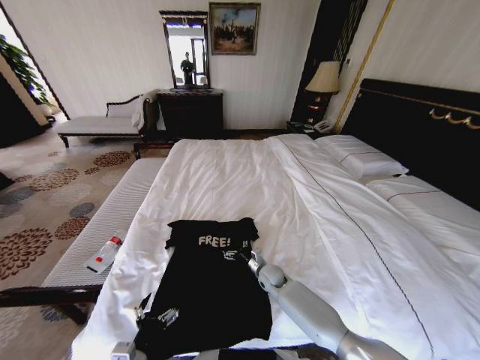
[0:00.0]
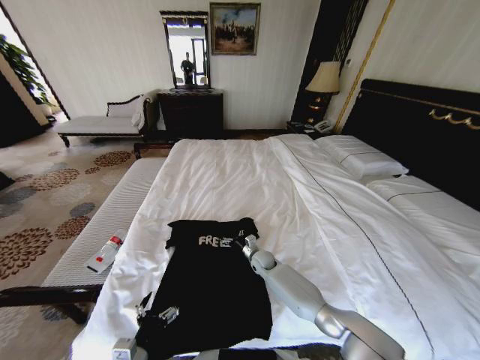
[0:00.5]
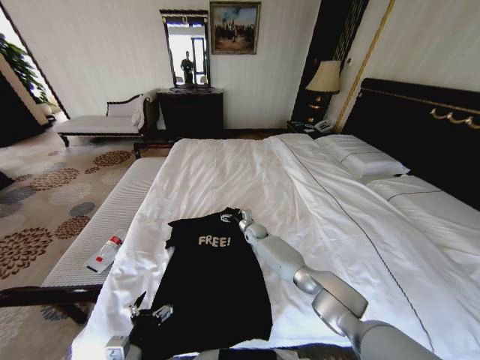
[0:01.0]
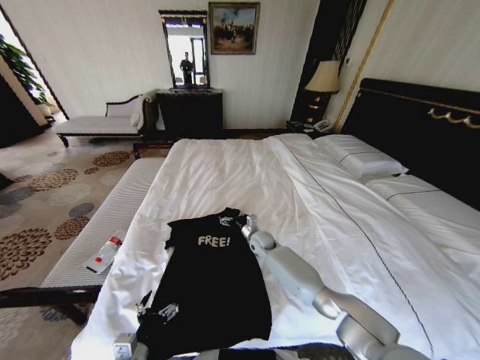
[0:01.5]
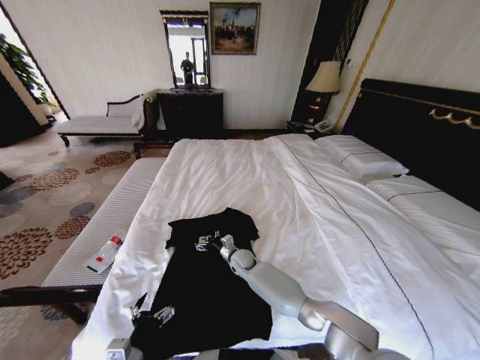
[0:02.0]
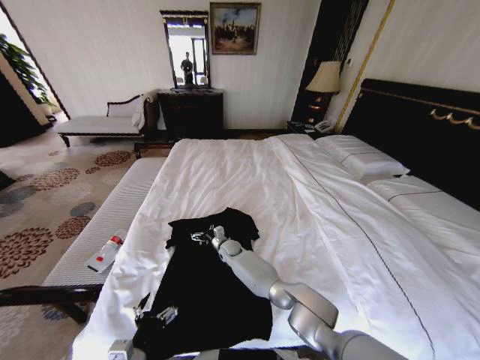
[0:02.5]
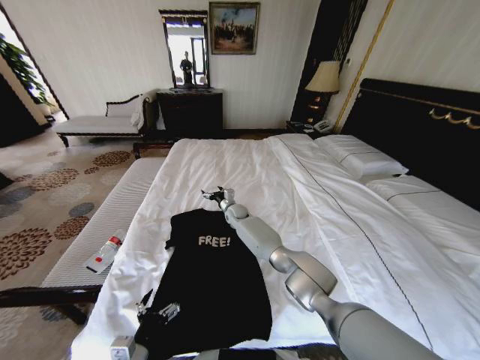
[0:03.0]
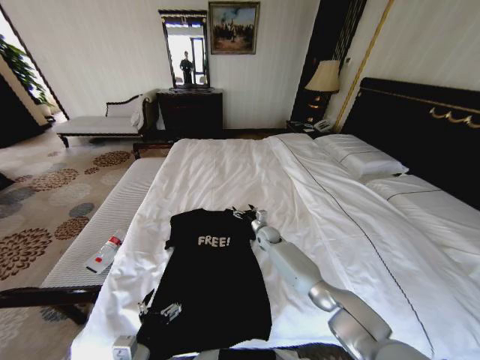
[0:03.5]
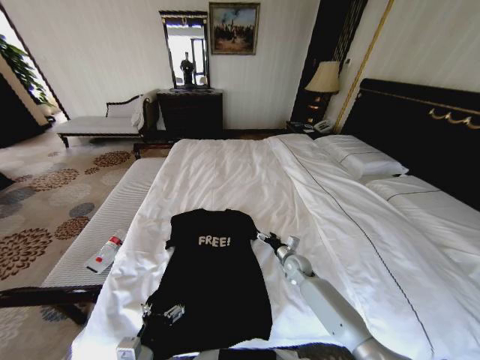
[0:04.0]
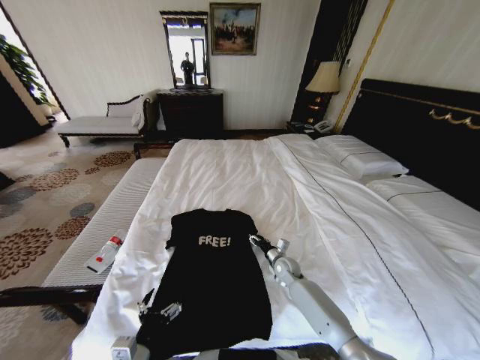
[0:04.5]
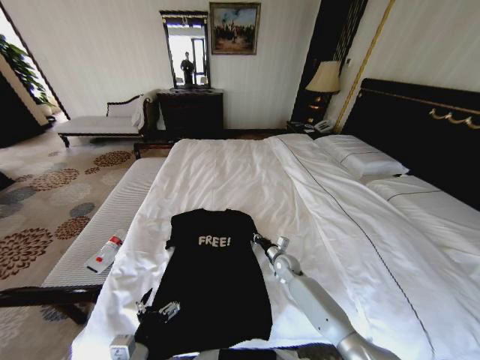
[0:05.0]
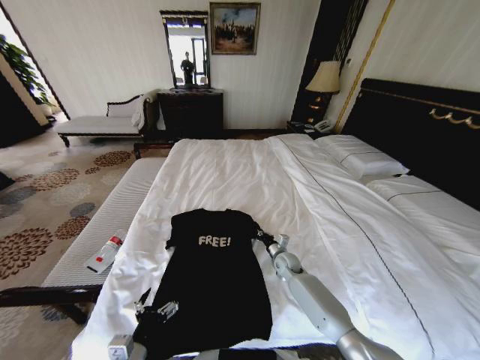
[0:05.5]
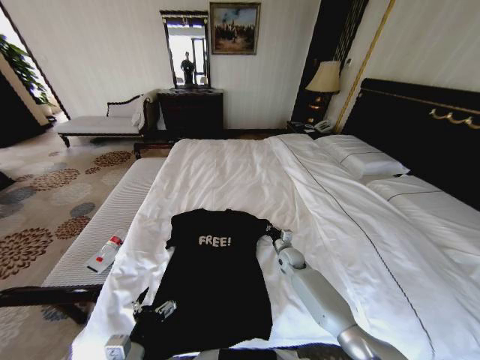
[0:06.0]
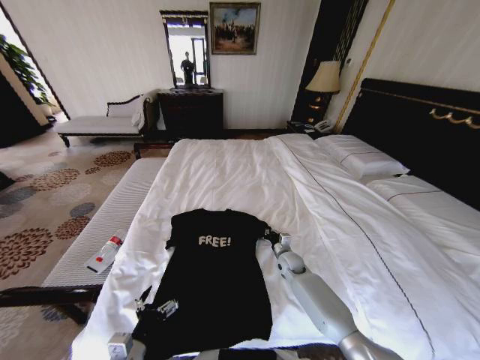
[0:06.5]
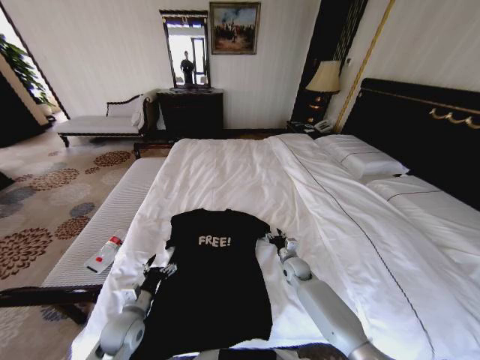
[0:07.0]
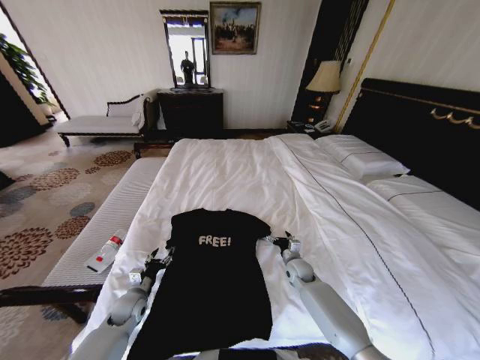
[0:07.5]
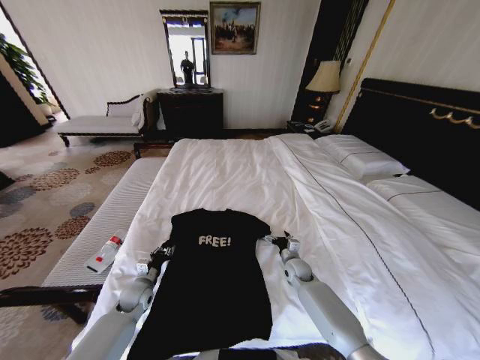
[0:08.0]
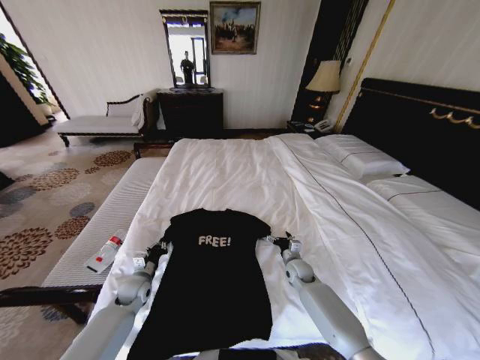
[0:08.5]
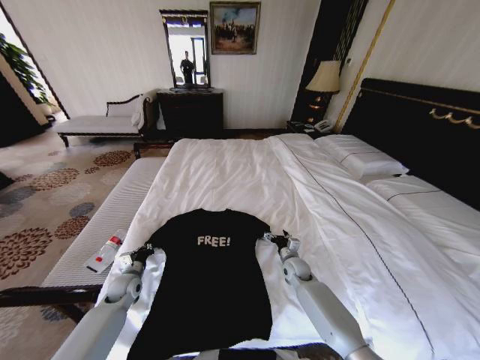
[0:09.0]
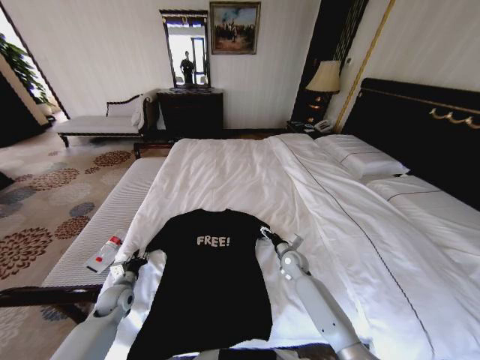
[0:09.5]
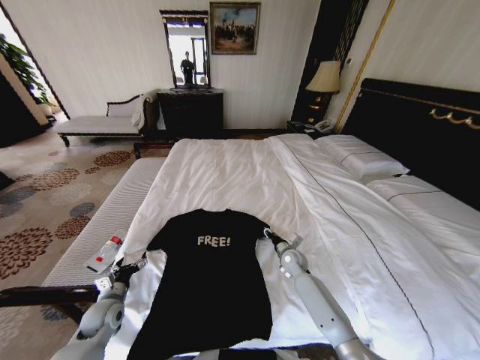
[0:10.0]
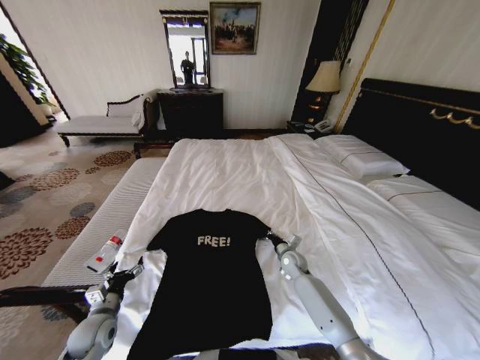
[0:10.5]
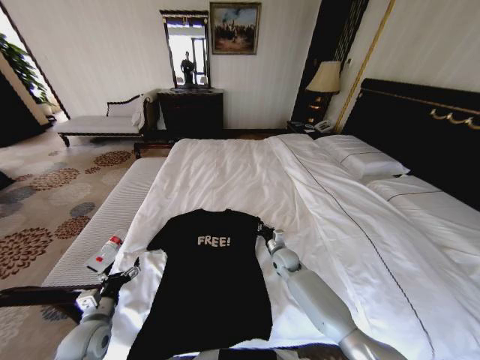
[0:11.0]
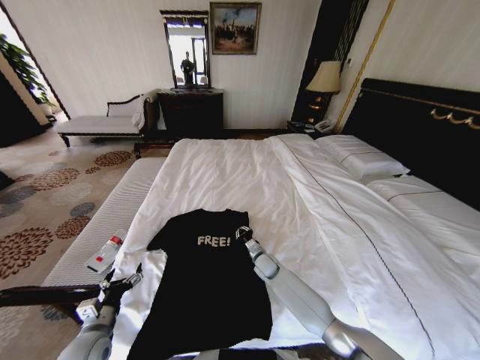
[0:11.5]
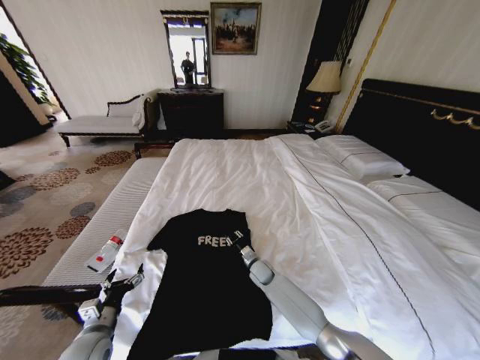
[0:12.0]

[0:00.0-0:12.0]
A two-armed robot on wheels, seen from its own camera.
Task of the whole recording: Fold the clothes on the bed.
0:00.0 to 0:02.0: The right gripper is displaced to the left by roughly 10 cm, and moves some 15 cm forward and comes back.
0:02.0 to 0:04.0: The right gripper shifts approximately 20 cm to the right.
0:04.0 to 0:06.0: The right gripper closes up.
0:06.0 to 0:08.0: The right gripper opens. The left gripper is displaced forward and downward by approximately 25 cm, and closes up.
0:08.0 to 0:10.0: The right gripper closes its fingers; the left gripper travels backward and to the left by some 10 cm, and opens up.
0:10.0 to 0:12.0: The left gripper travels backward by roughly 10 cm; the right gripper shifts approximately 15 cm to the left and downward.

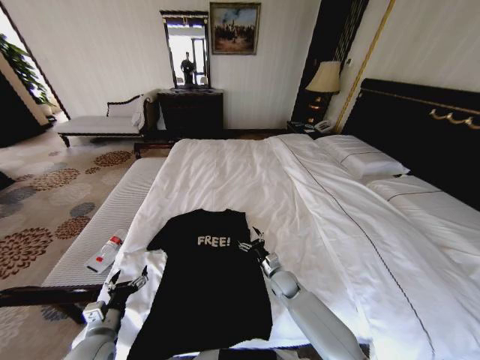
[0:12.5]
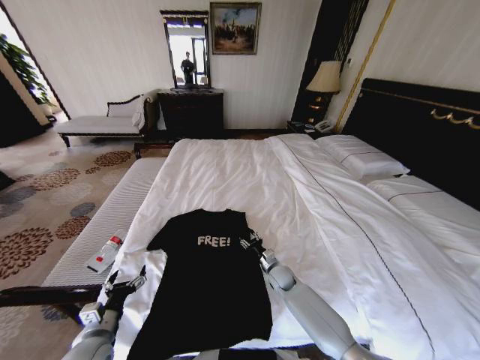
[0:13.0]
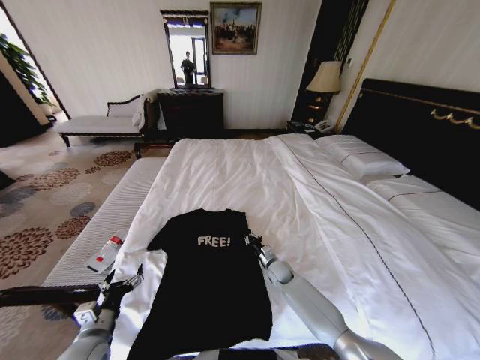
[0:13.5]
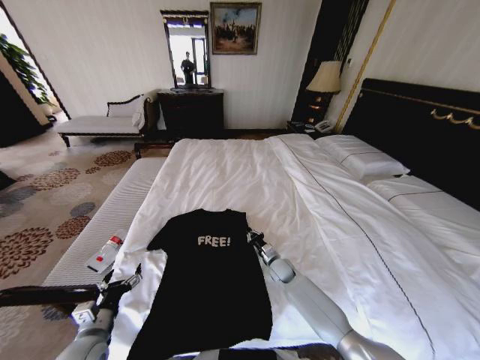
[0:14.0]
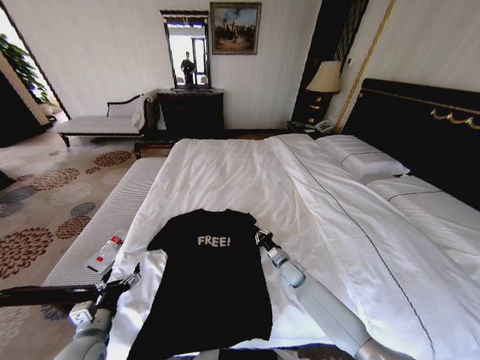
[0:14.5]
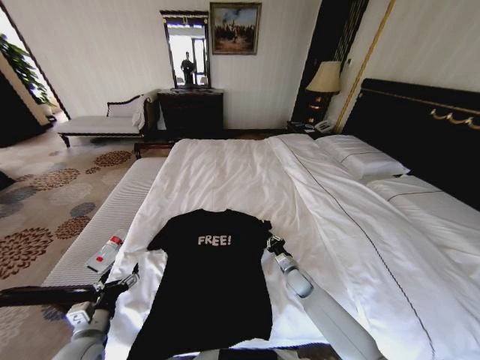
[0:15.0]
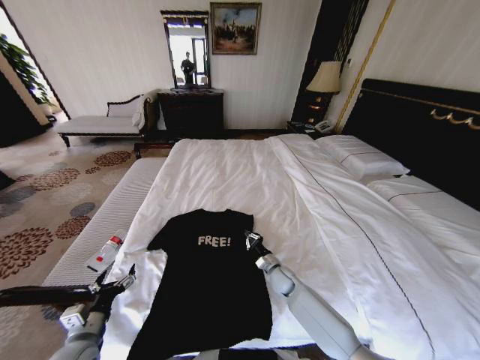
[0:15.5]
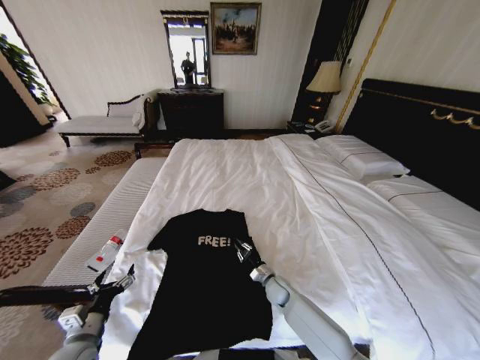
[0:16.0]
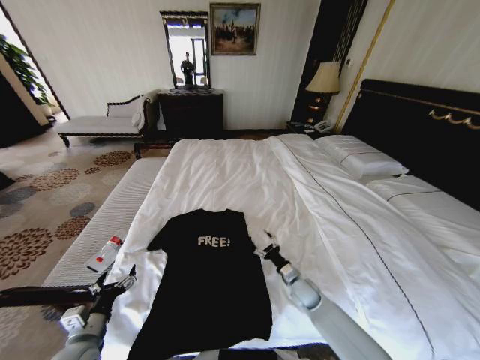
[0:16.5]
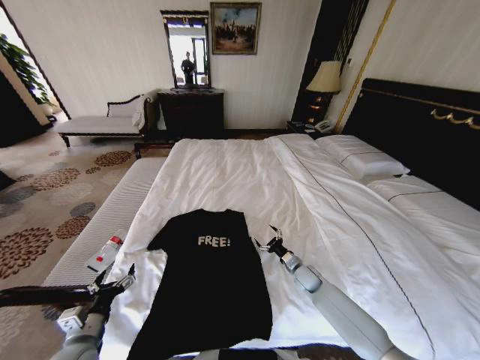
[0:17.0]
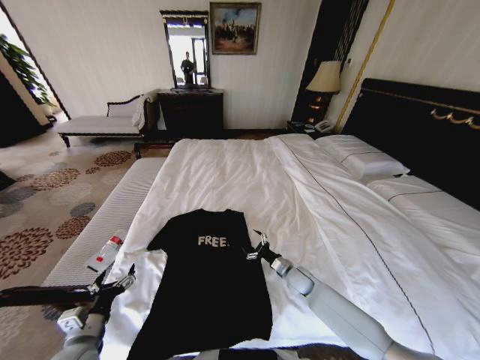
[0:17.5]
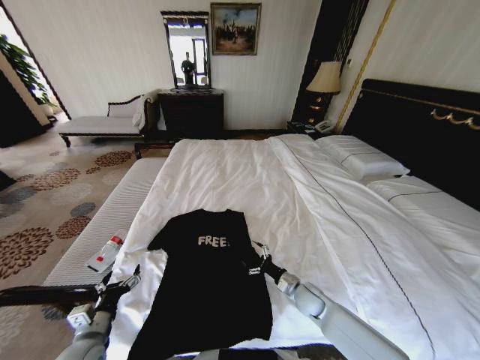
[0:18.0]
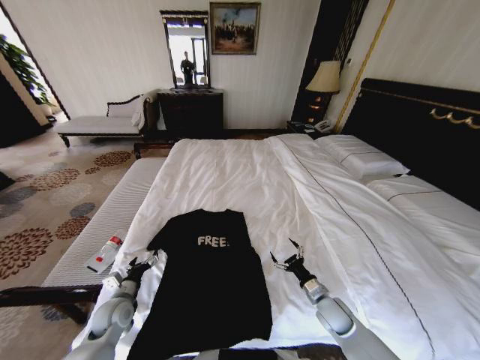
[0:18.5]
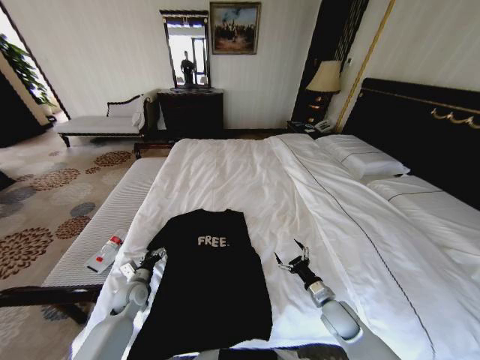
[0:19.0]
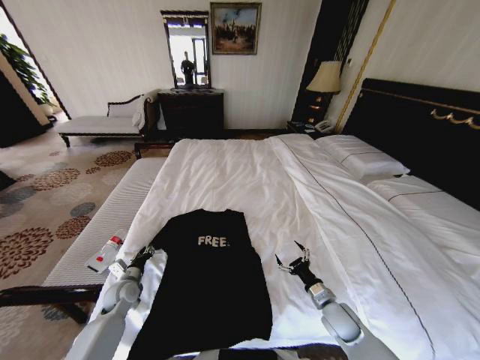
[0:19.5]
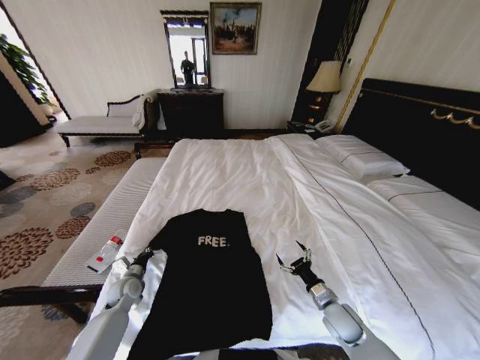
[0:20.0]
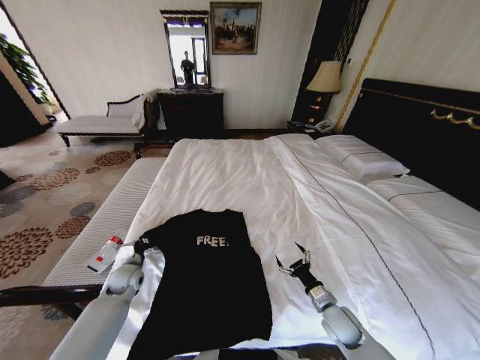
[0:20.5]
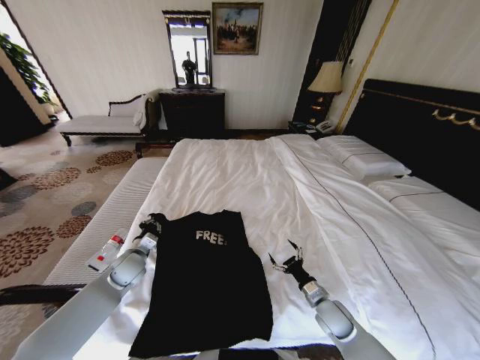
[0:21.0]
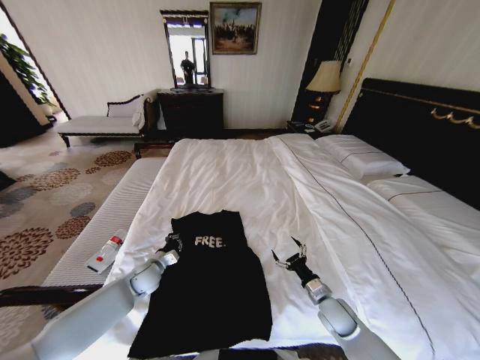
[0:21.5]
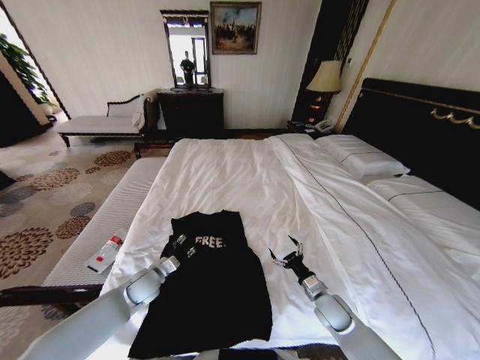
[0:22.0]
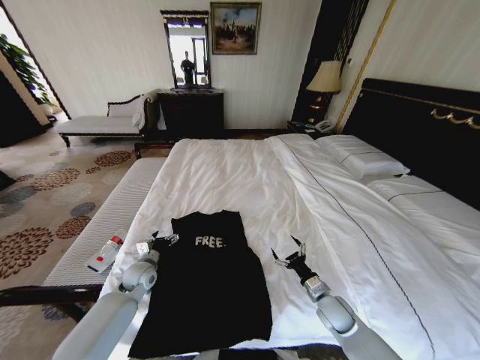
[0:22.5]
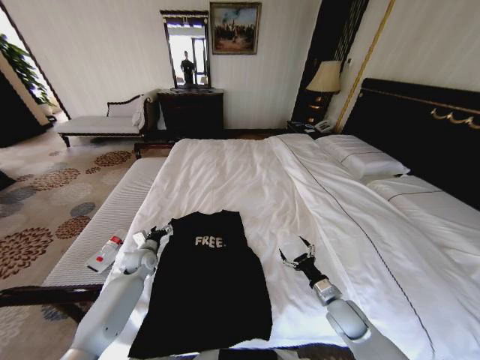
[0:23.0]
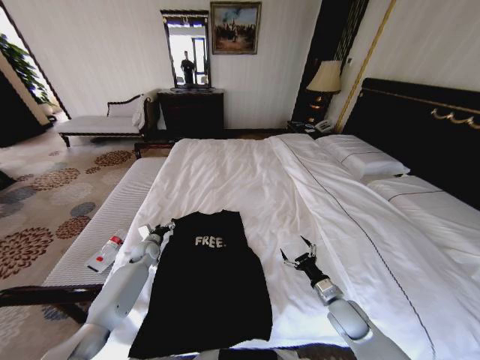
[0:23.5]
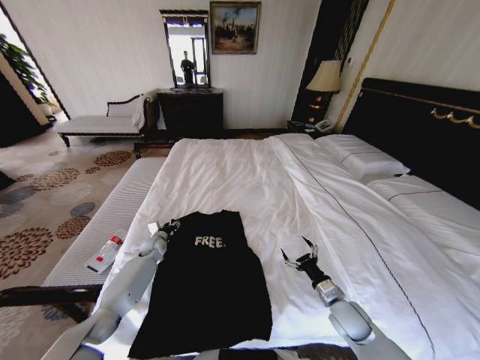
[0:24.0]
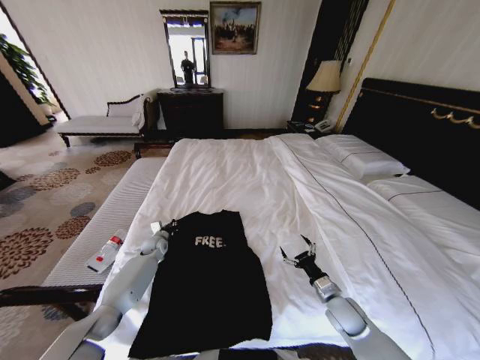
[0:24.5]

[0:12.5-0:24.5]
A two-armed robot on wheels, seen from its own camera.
Task of the whole recording: Fold the clothes on the bed.
0:12.5 to 0:14.5: The right gripper ends up some 5 cm from where it was, and closes its fingers.
0:14.5 to 0:16.5: The right gripper heads backward, covering some 10 cm, and opens up.
0:16.5 to 0:18.5: The left gripper goes some 10 cm forward, while the right gripper is displaced to the right and backward by some 10 cm.
0:18.5 to 0:20.5: The left gripper moves forward, about 10 cm, and closes its fingers.
0:20.5 to 0:22.5: The left gripper opens.
0:22.5 to 0:24.5: The left gripper goes about 15 cm forward, and closes.

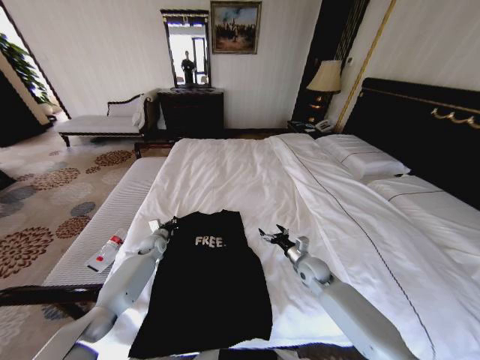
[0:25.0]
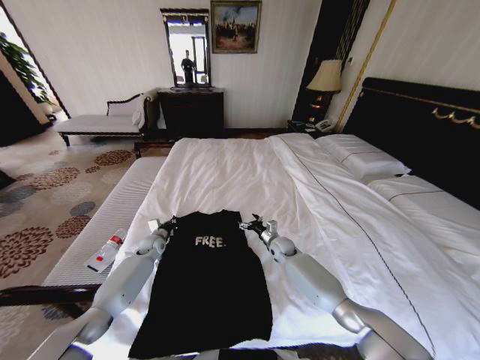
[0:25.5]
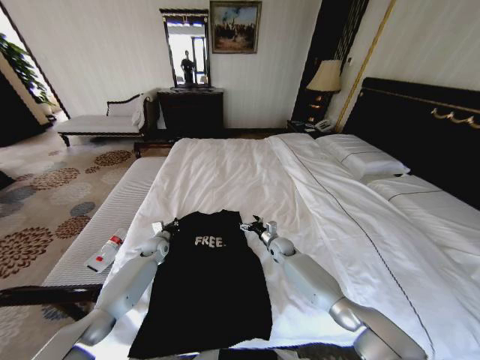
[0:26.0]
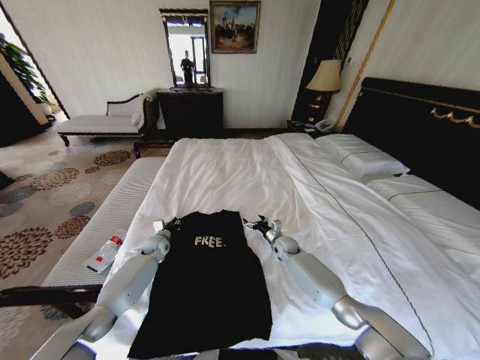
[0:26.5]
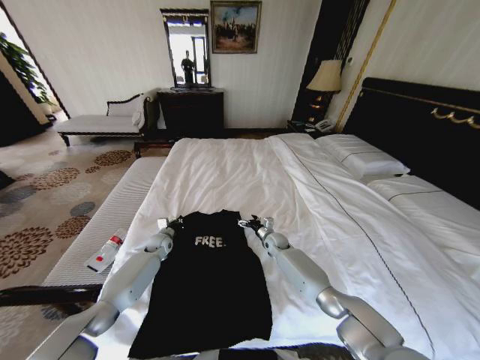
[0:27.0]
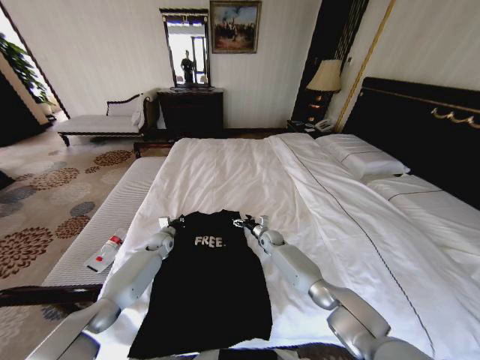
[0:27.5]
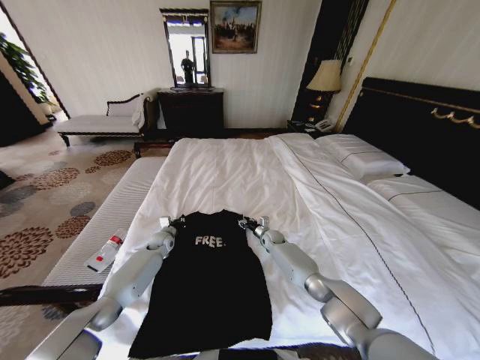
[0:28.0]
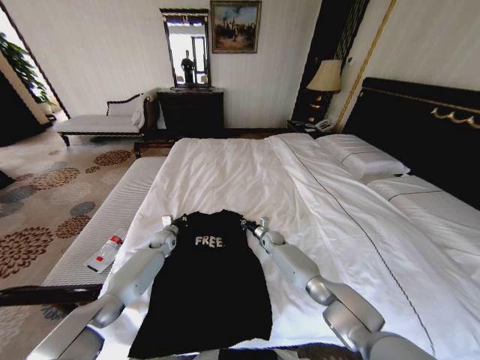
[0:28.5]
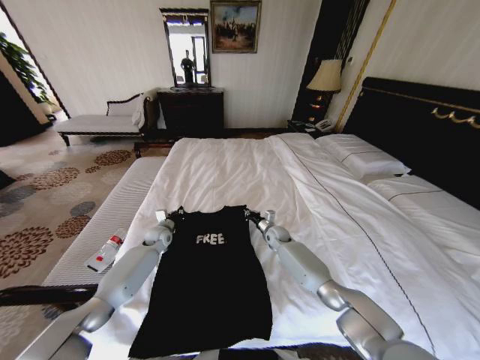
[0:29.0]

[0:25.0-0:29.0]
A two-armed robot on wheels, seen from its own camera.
Task of the whole recording: Fold the clothes on the bed.
0:25.0 to 0:27.0: The right gripper travels forward and to the left by roughly 15 cm.
0:27.0 to 0:29.0: The right gripper closes up.
